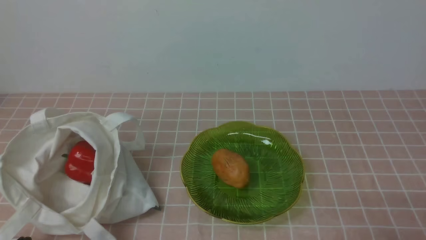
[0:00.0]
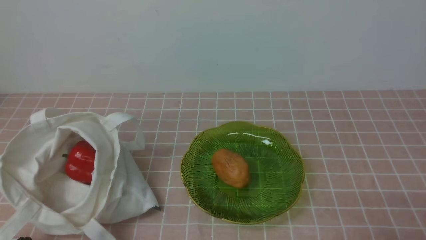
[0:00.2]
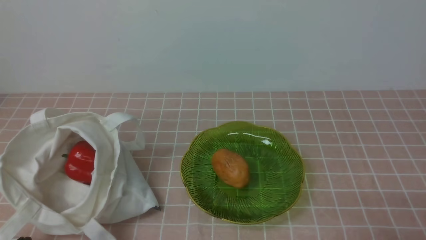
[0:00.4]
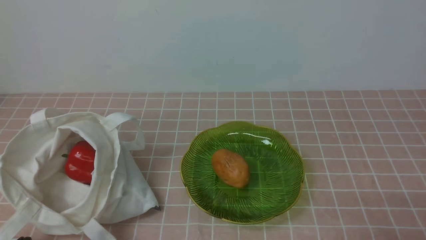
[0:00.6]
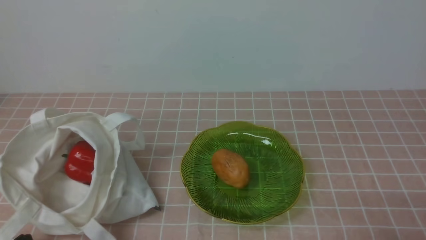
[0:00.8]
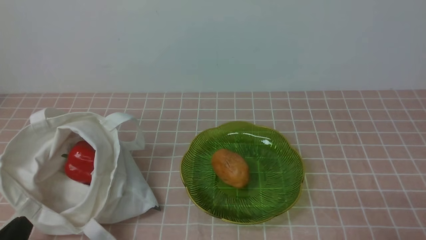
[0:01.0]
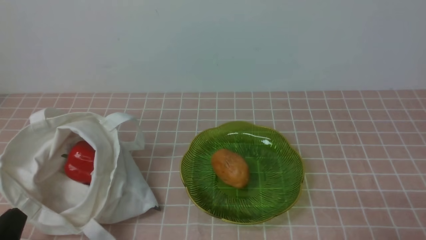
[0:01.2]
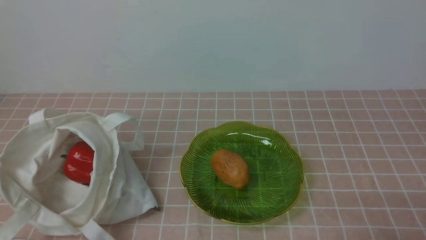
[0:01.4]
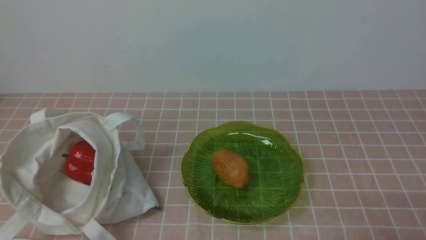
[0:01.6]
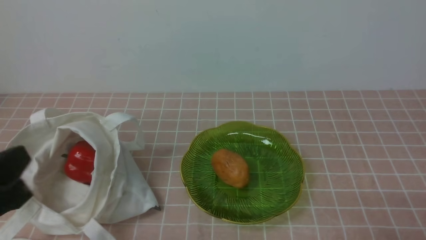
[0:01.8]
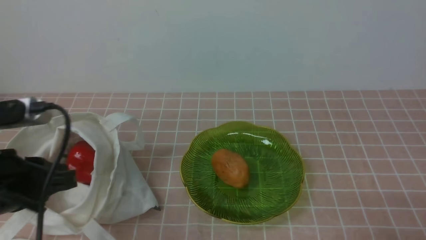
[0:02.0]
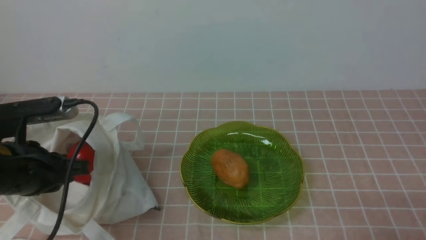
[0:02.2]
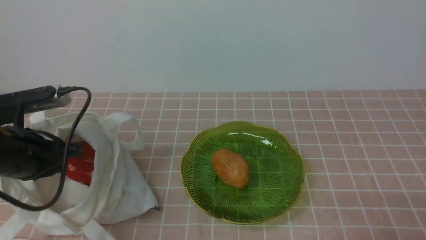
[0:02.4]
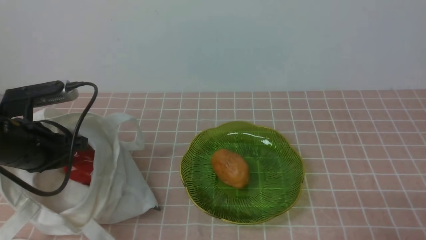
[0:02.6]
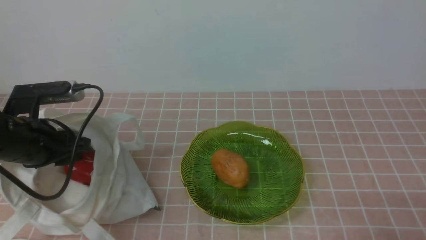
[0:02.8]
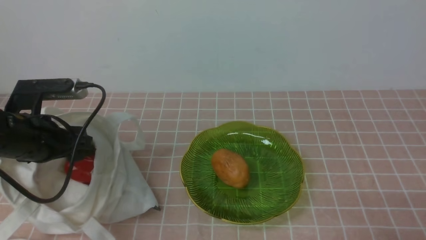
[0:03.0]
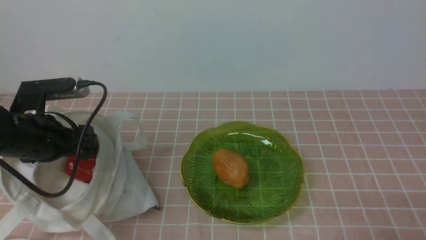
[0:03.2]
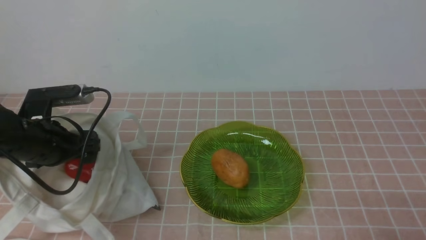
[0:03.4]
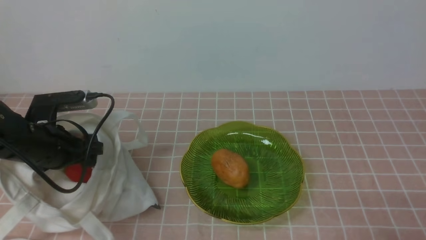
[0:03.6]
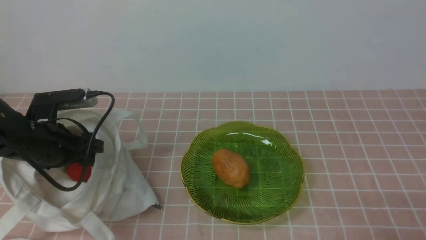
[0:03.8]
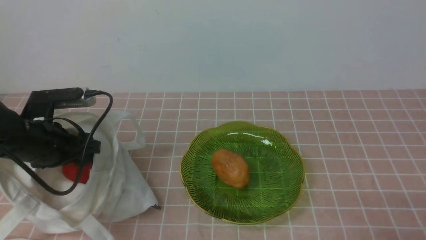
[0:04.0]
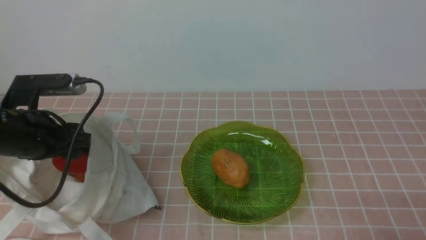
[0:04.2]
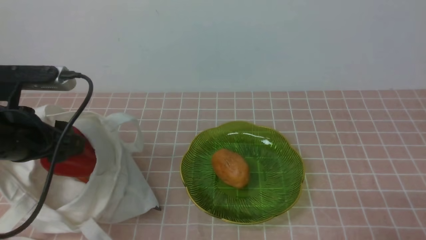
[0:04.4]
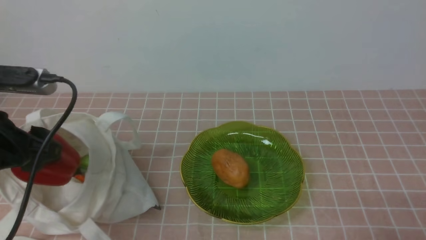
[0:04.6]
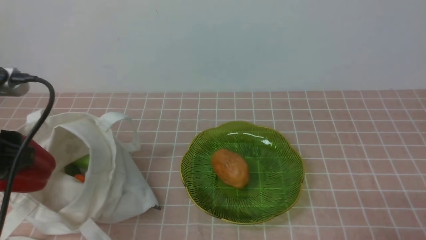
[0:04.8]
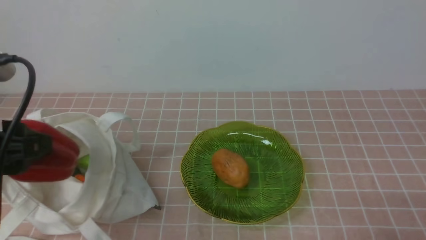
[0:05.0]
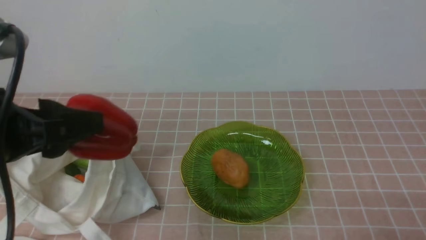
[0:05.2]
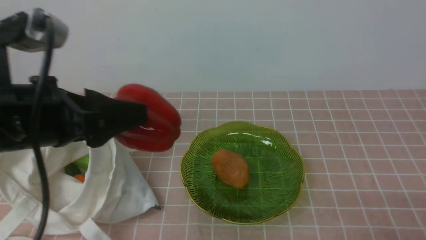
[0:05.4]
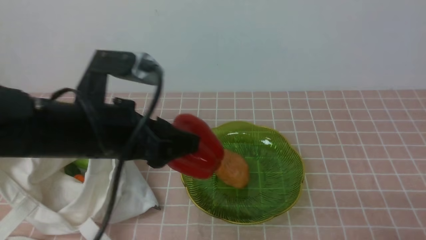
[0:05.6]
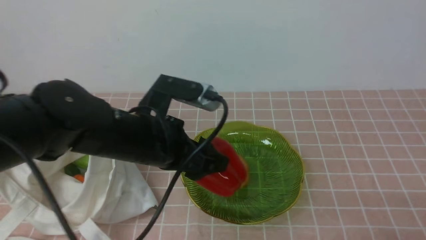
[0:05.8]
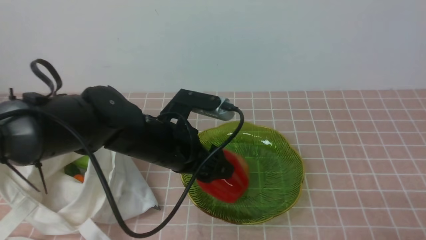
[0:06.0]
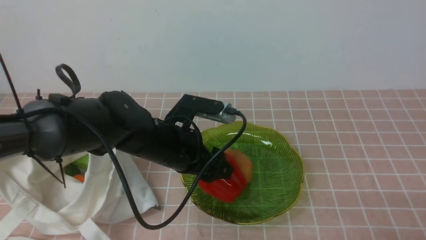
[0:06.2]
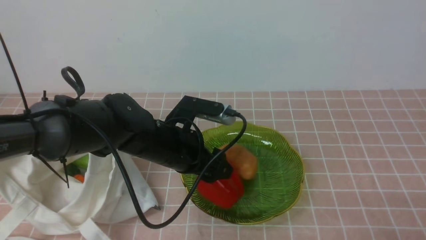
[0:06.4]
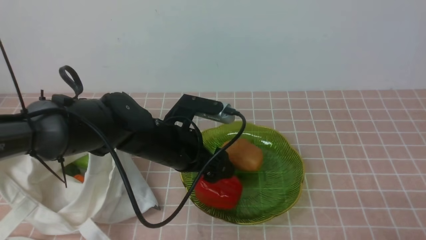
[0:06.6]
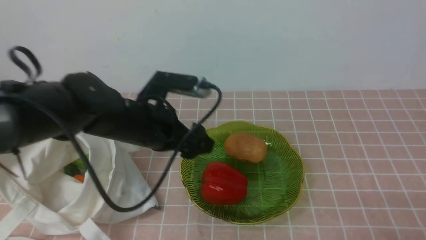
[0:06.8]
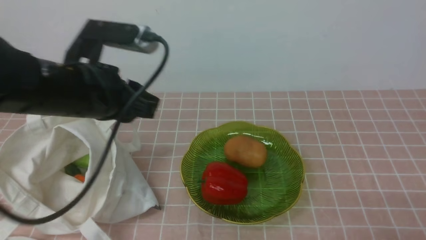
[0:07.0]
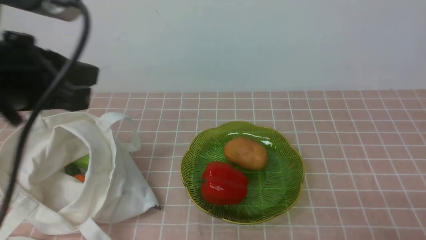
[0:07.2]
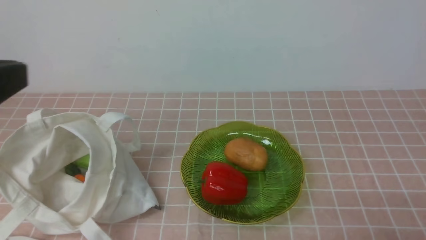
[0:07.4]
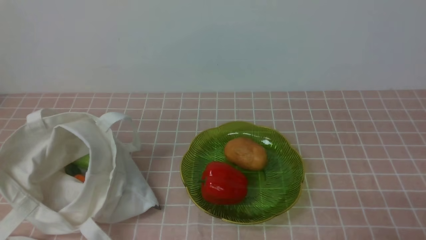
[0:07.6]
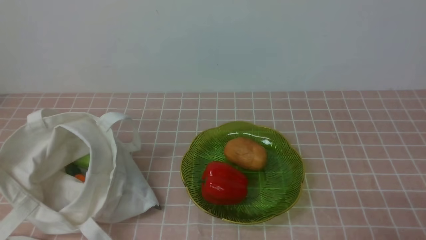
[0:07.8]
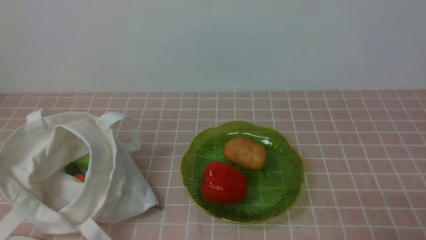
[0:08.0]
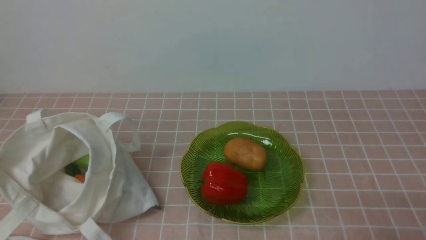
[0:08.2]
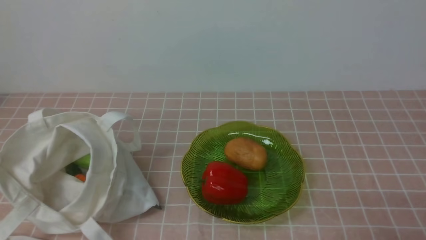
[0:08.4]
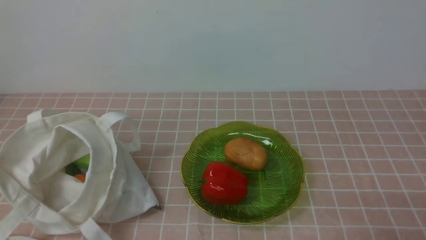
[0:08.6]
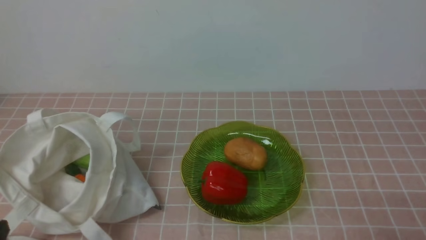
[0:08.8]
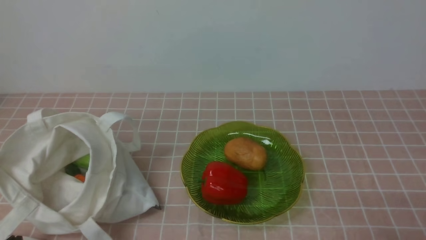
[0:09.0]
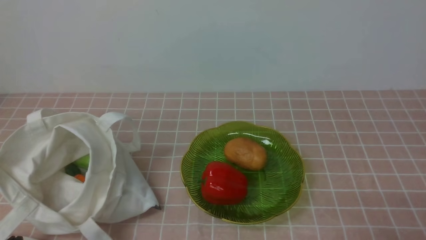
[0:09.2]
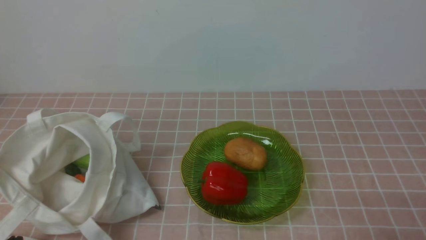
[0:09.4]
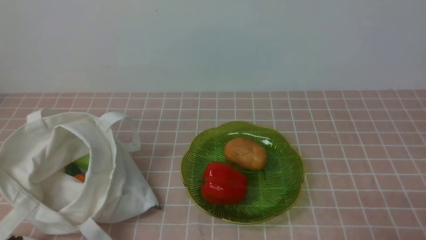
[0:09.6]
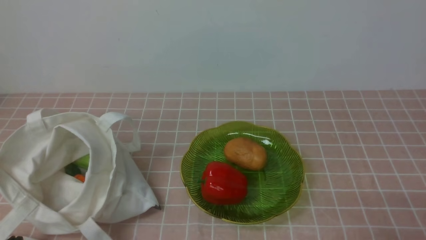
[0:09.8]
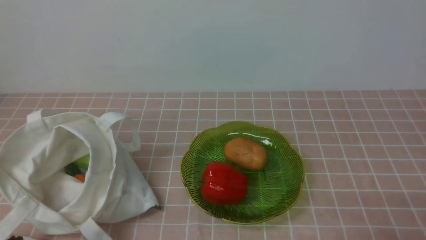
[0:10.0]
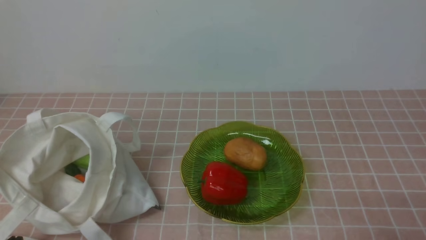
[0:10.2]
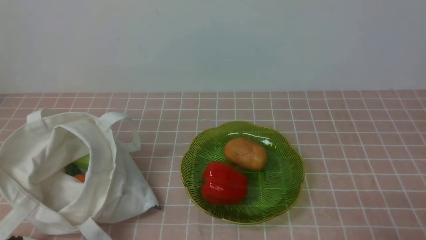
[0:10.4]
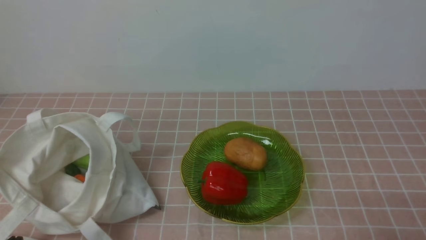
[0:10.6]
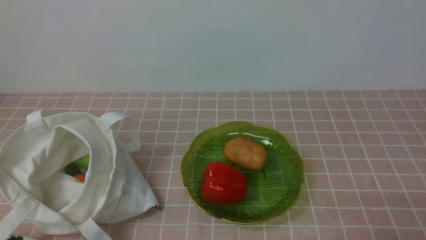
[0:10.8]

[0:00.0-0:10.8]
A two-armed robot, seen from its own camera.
Task of the whole recording: take vegetables from bag on pink coffee tablecloth place on plate.
Step, 0:00.0 to 0:03.8: Grasp the bell pepper with left gripper.
Step, 0:04.0 to 0:06.8: Place the bell pepper on the plate with left gripper.
0:01.6 to 0:03.0: The left gripper moves forward, approximately 20 cm, and opens up.
0:03.0 to 0:04.6: The left gripper shifts some 10 cm upward and backward.
0:04.6 to 0:06.2: The left gripper goes approximately 25 cm to the right, downward and forward.
0:06.2 to 0:07.8: The left gripper goes approximately 40 cm backward, upward and to the left, and closes its fingers.
0:09.2 to 0:10.8: Both grippers stay about where they are.
